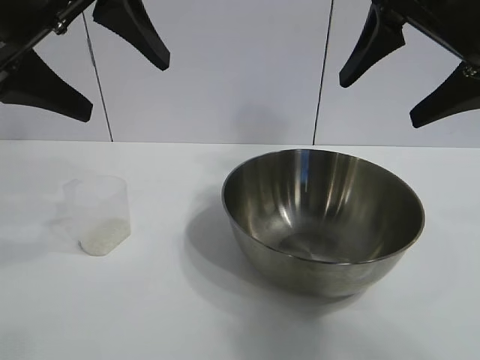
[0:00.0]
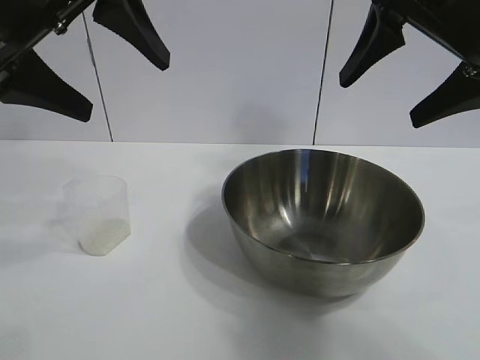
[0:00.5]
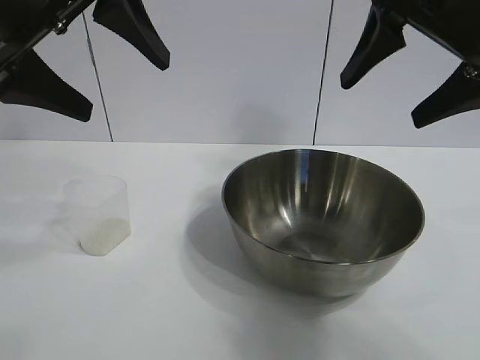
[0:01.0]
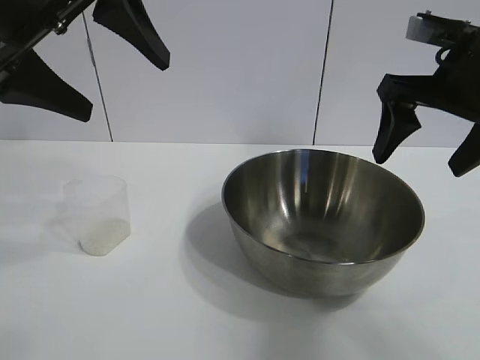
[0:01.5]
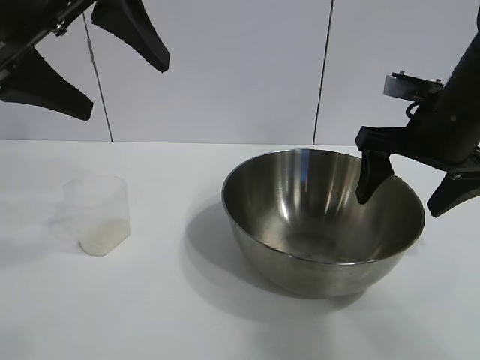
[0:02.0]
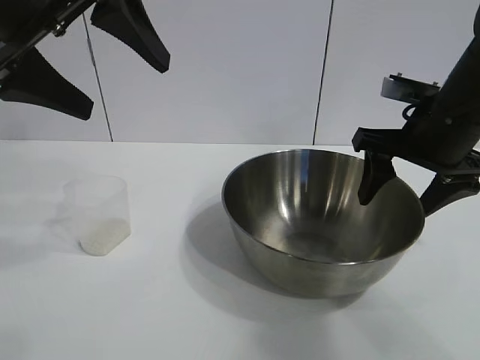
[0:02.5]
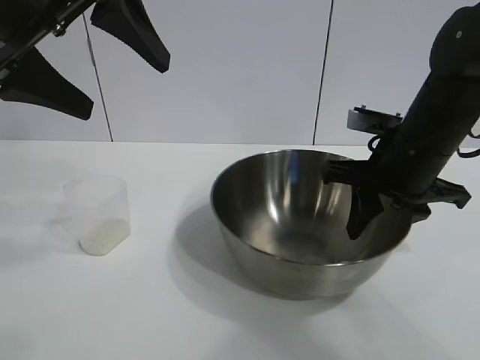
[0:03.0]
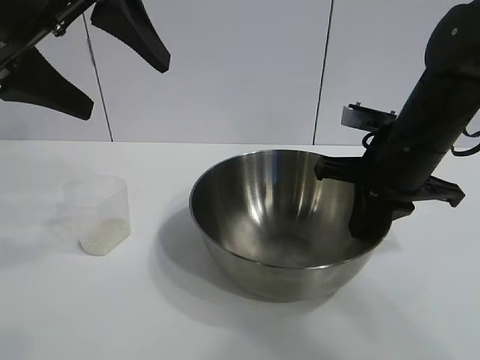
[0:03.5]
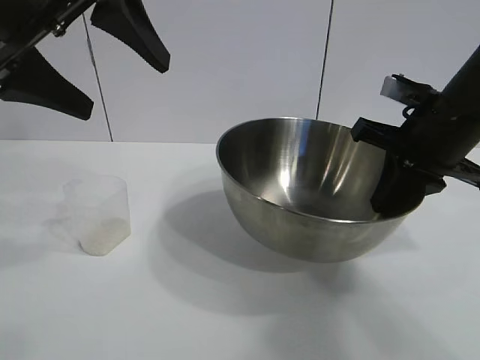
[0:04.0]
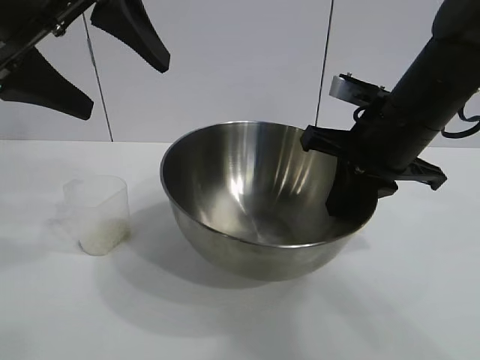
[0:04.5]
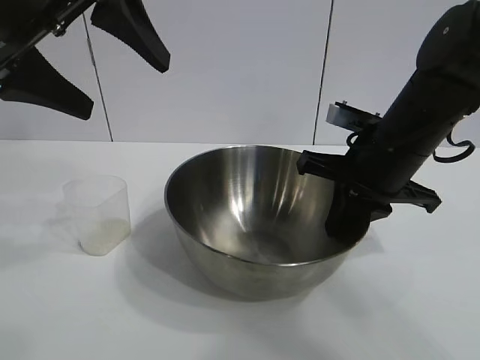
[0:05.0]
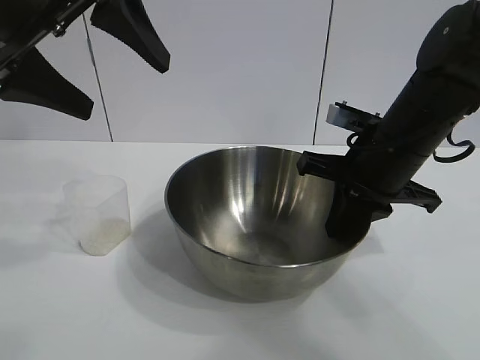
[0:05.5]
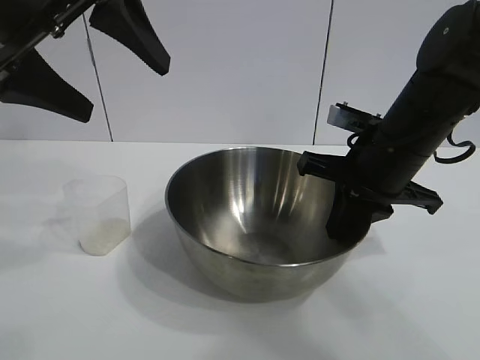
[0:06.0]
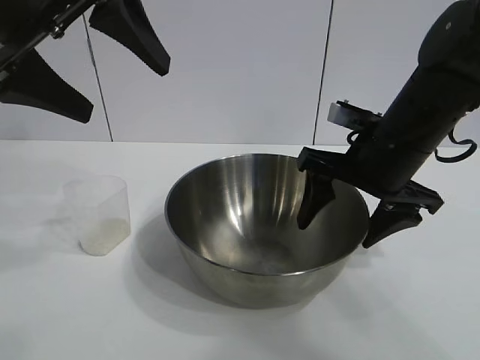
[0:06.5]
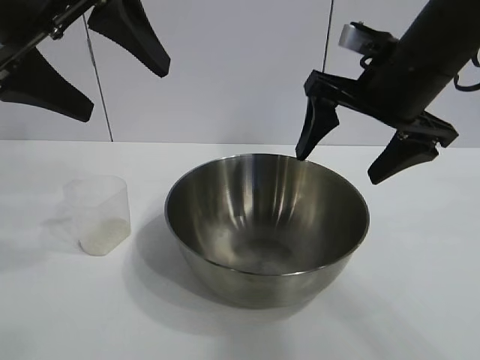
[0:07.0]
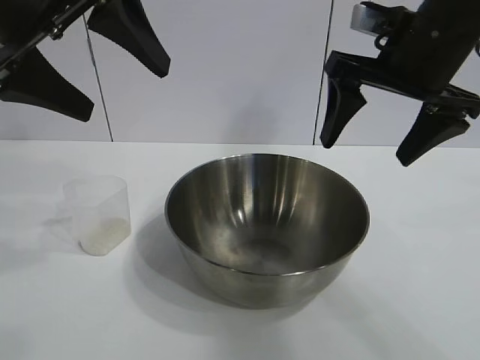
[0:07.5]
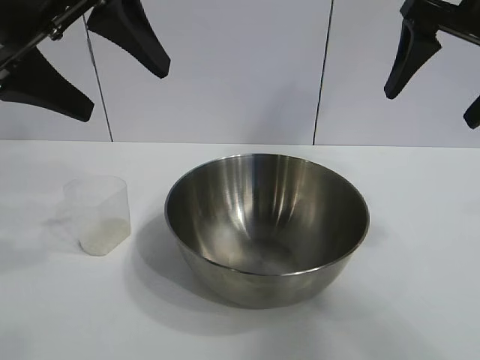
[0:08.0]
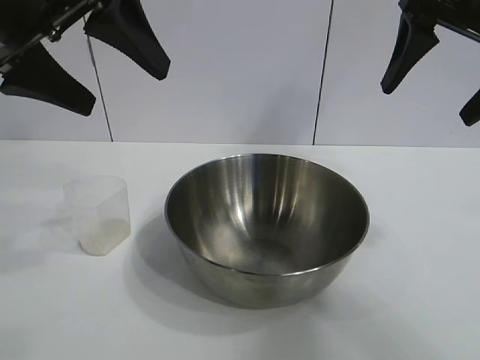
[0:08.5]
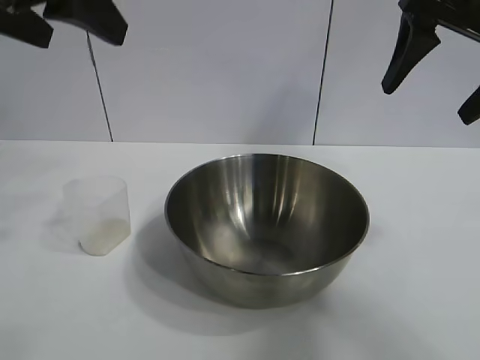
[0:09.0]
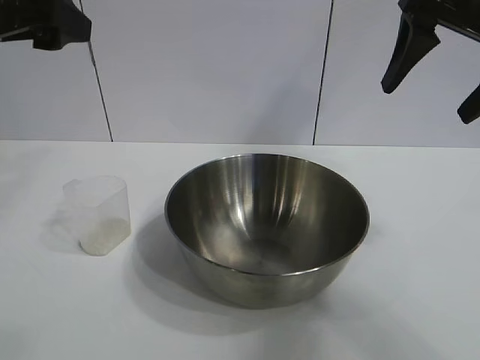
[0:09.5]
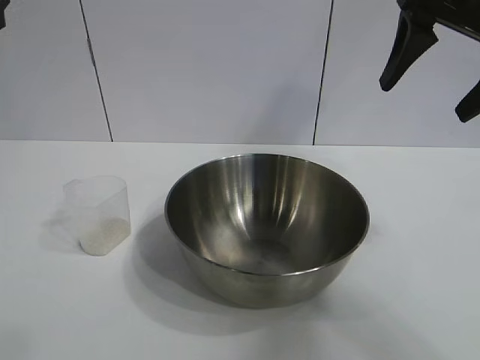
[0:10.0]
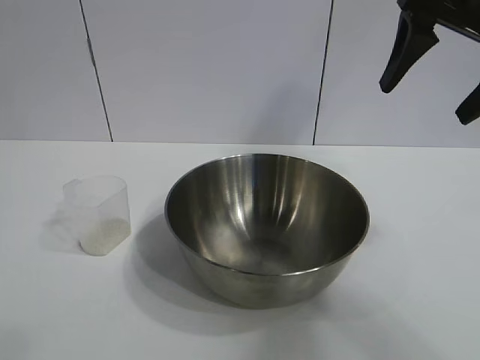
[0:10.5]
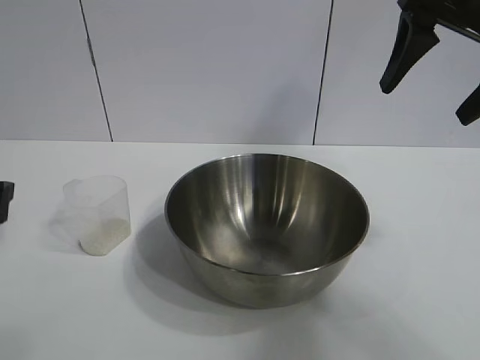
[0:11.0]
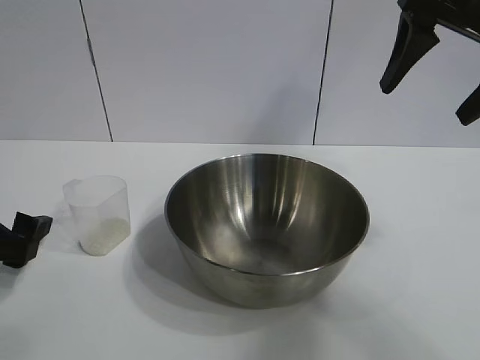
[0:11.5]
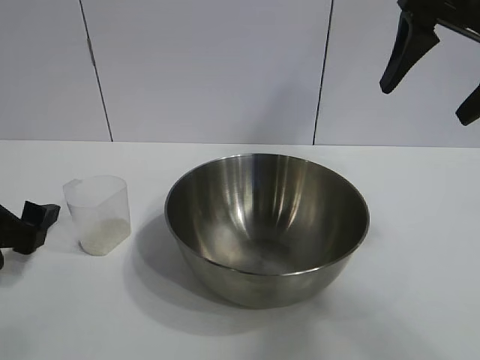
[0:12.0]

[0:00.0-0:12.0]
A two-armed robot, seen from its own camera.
Task of the whole recording: the right gripper grasp the rice container and place it in the center of the table, the left gripper grasp the rice scoop and pour the rice into the rice container.
Step, 1.0 to 6.0 s: Move the bowl in the center of view with right gripper.

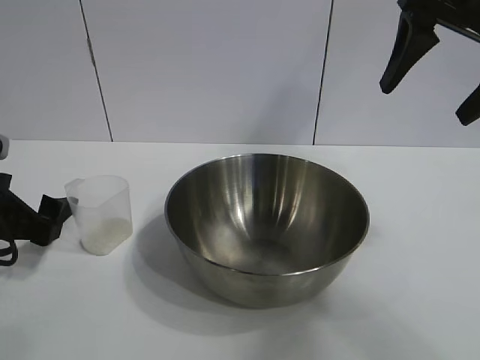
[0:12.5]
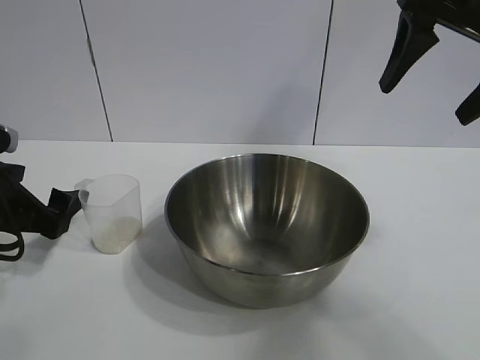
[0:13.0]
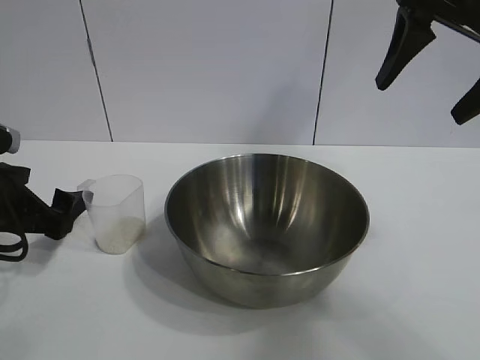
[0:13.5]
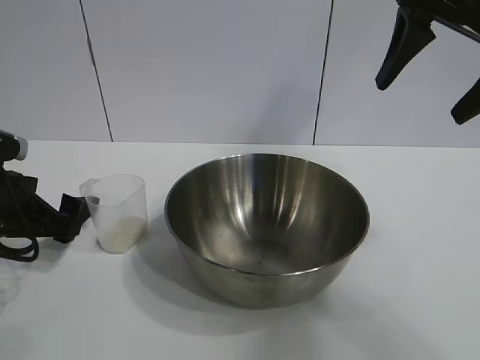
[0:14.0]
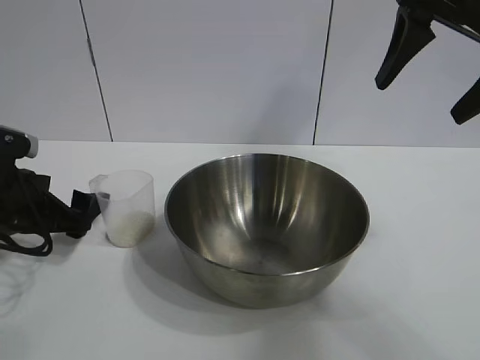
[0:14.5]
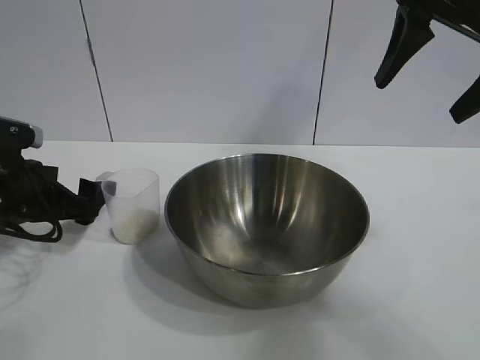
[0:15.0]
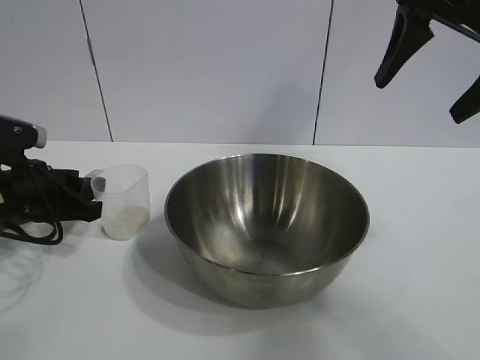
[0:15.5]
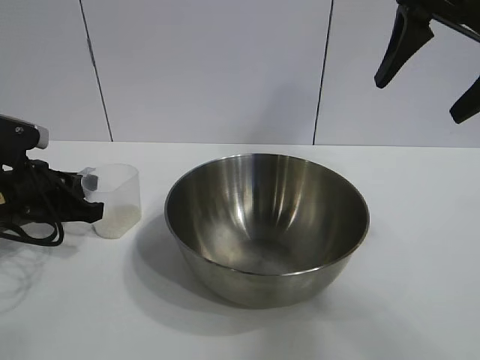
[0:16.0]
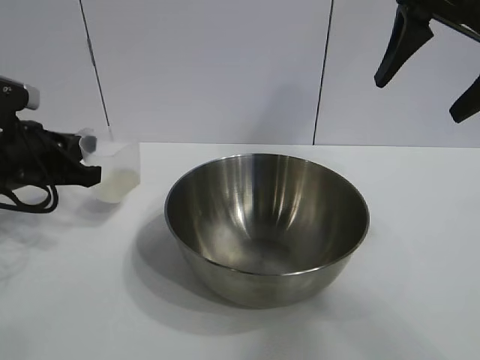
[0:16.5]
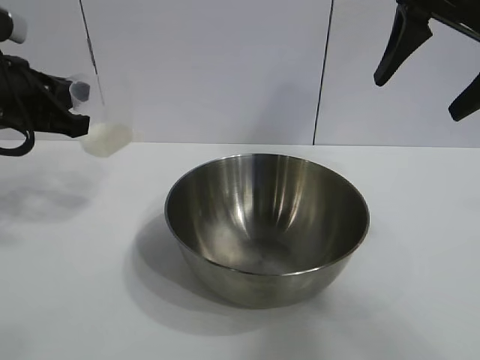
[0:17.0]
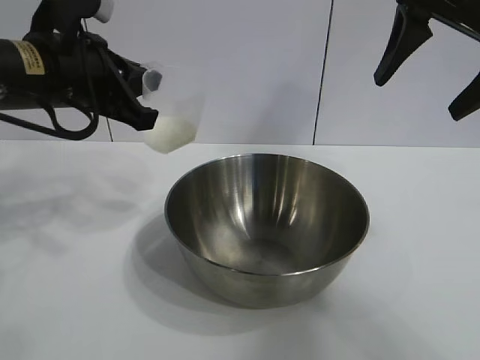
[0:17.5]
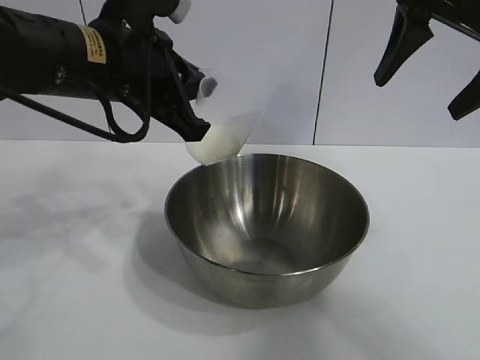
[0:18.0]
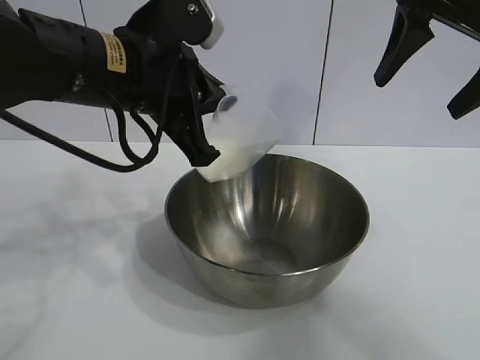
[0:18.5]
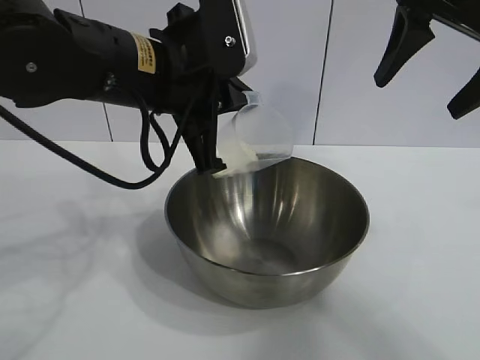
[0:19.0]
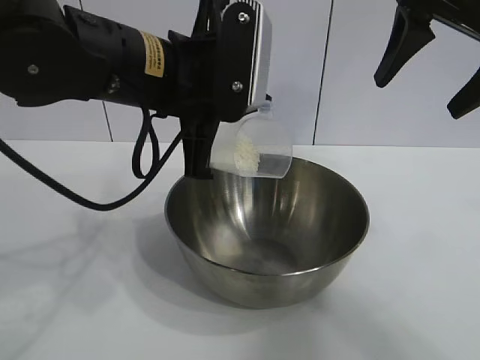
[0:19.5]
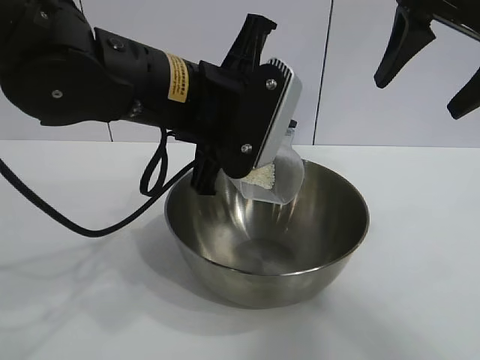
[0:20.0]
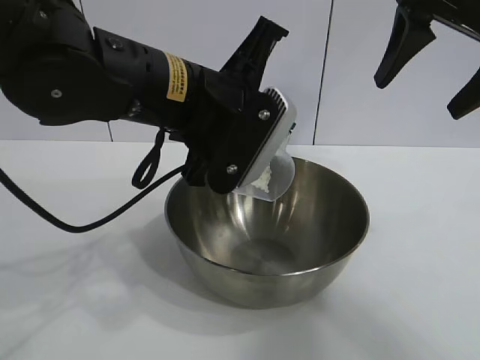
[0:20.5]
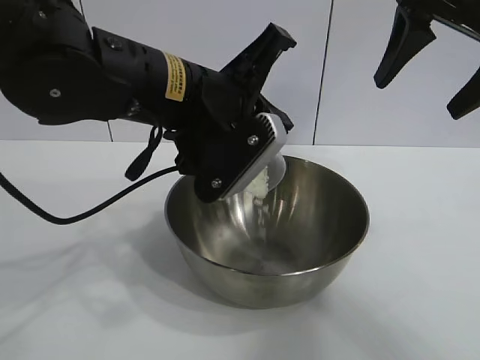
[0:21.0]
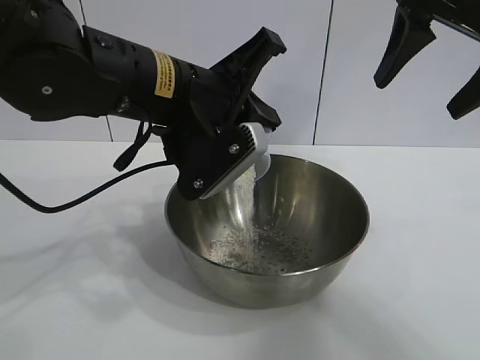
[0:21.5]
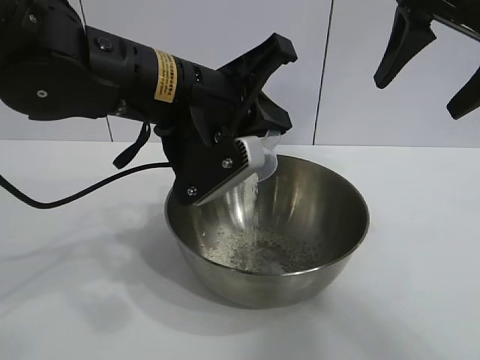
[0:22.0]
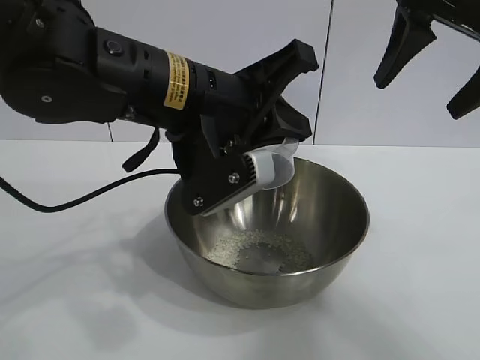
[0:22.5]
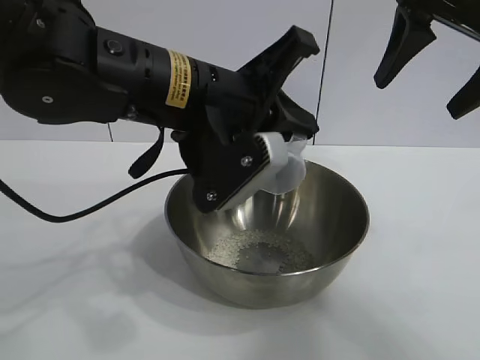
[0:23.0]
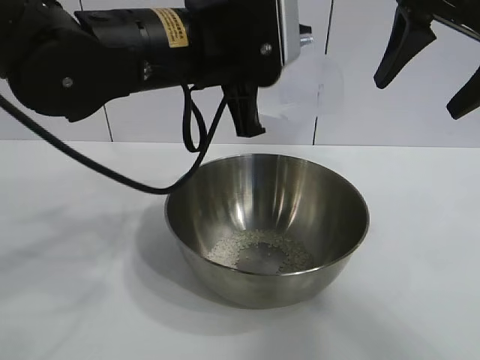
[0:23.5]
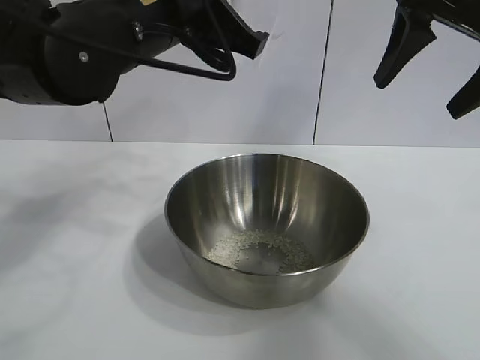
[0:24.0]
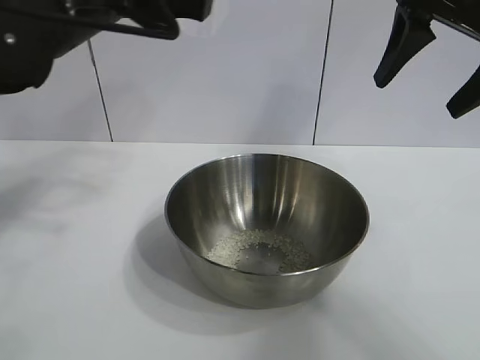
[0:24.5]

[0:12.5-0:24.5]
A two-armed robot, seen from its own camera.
Task of the whole recording: the right gripper grasp the rice container and place it in the center of the table, the left gripper grasp the rice scoop and pour the rice into the rice container.
Step, 12.5 to 16.0 s: Grasp the cup with rice in it with left gripper.
Step, 16.5 to 22.0 s: Pour the rice from the cup into the bowl with the left gripper.

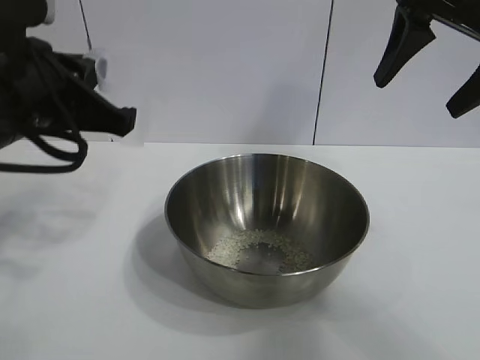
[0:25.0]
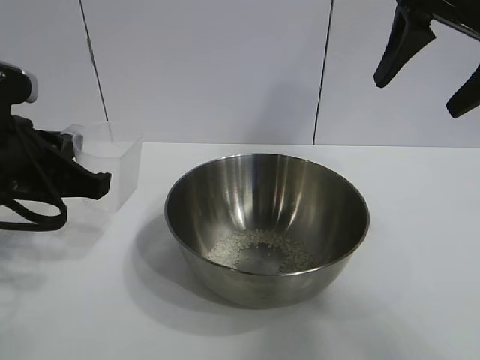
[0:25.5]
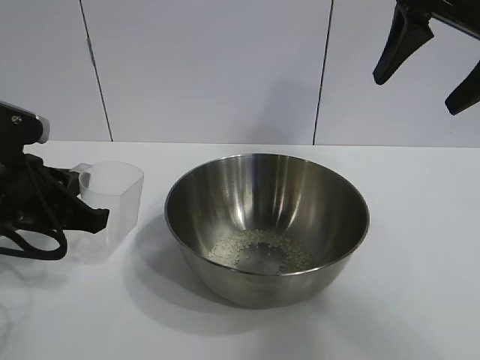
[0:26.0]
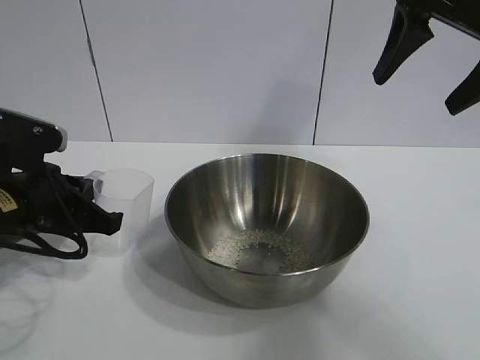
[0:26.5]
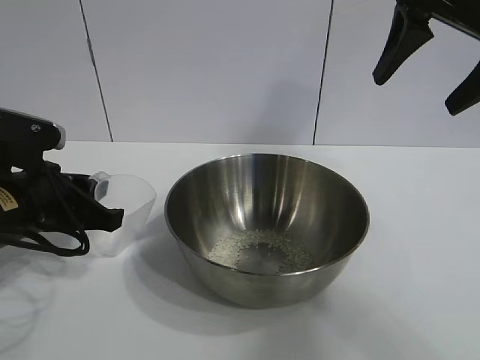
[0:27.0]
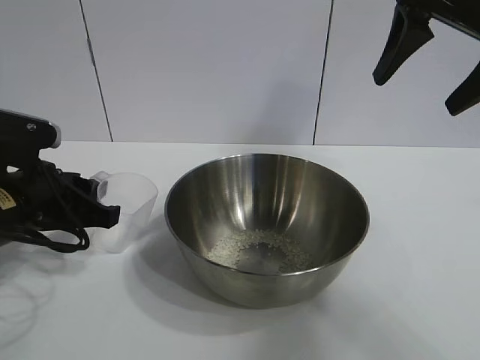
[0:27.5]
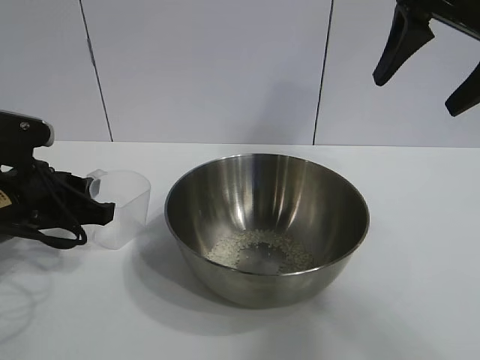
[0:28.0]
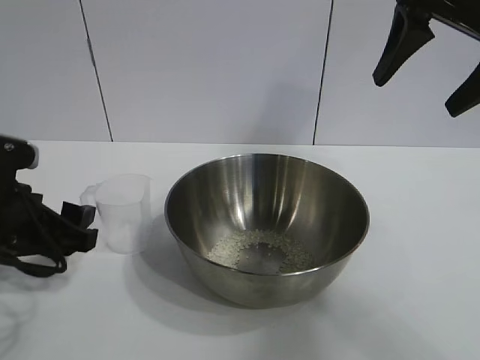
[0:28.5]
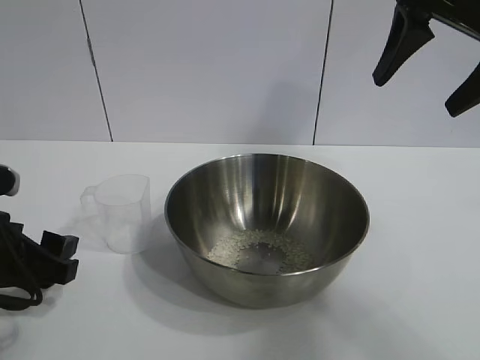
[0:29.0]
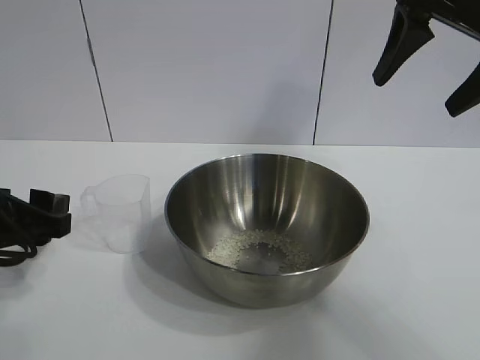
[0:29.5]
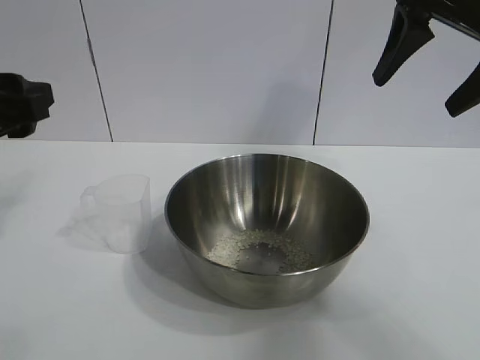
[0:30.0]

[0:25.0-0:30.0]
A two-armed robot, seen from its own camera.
Task of the whole recording: the right gripper grasp the rice container and place it in the center of the table, the left gripper grasp the rice scoop and pour the rice into the rice container.
Step, 25.0 to 28.0 s: Place the cup on the table with the left gripper.
